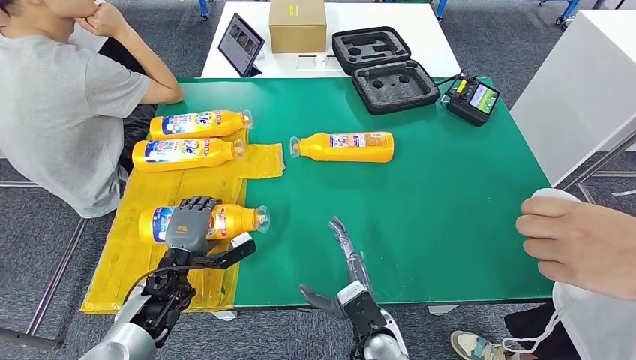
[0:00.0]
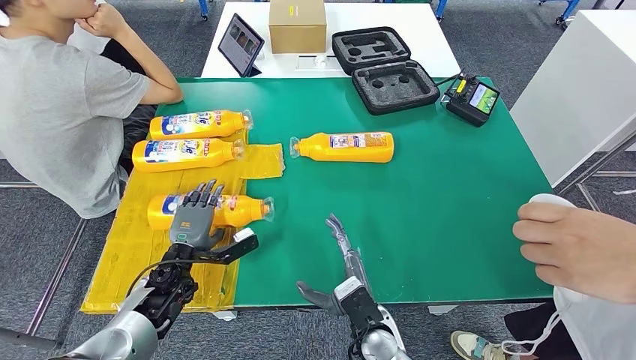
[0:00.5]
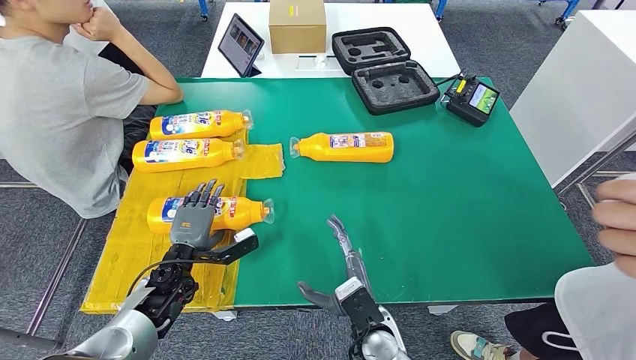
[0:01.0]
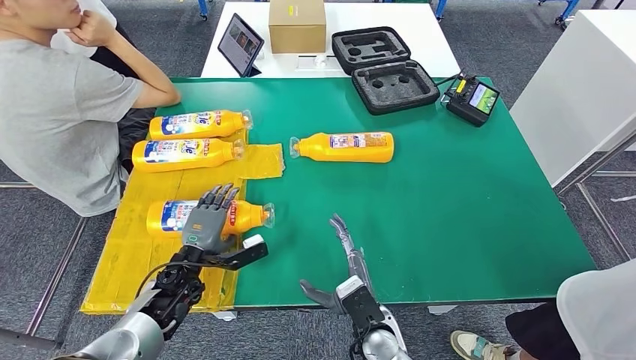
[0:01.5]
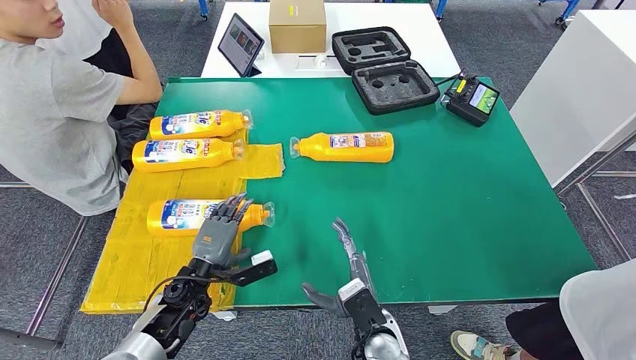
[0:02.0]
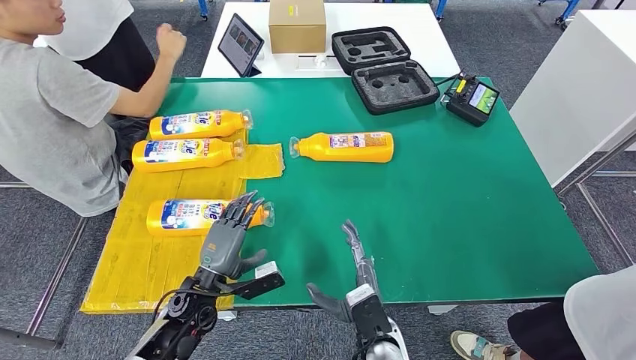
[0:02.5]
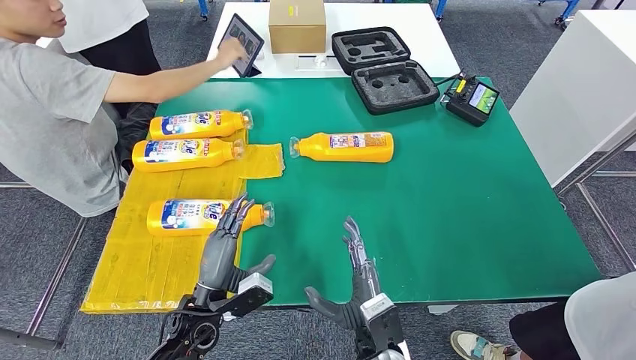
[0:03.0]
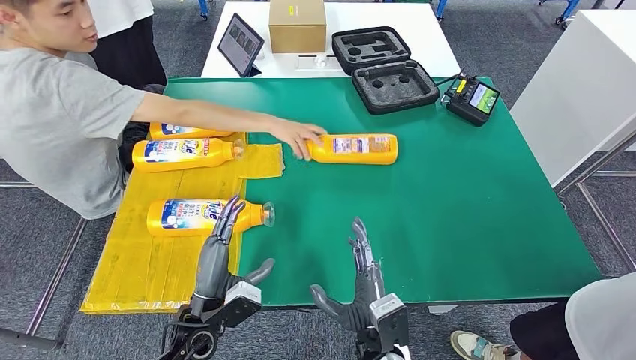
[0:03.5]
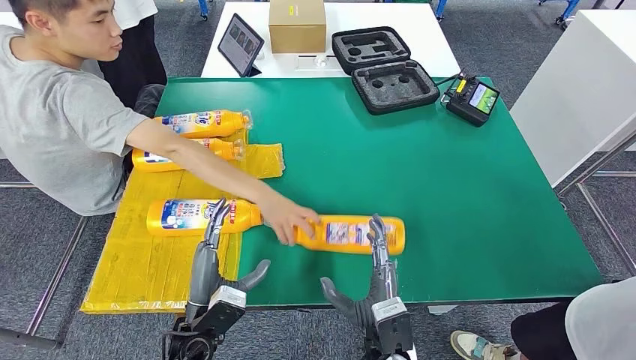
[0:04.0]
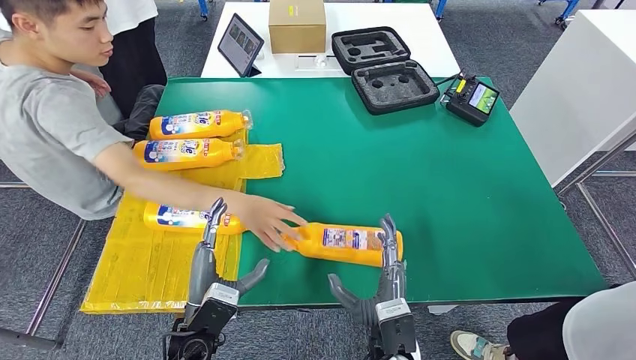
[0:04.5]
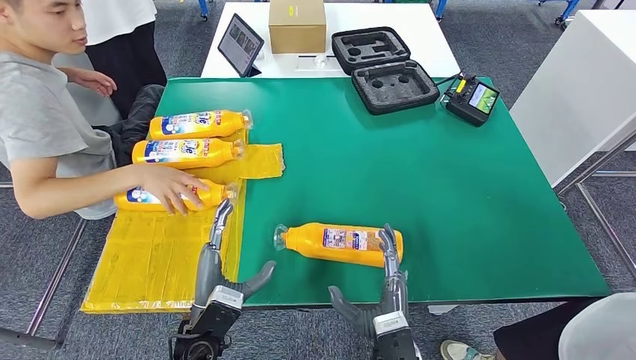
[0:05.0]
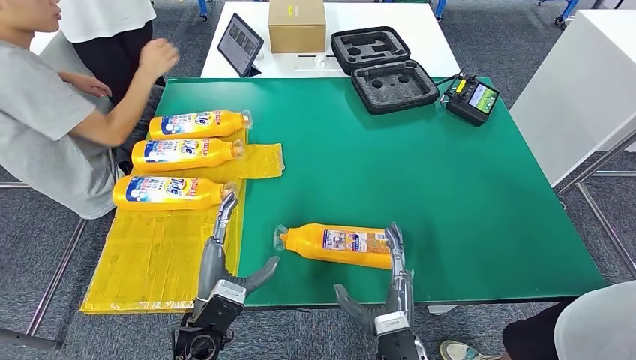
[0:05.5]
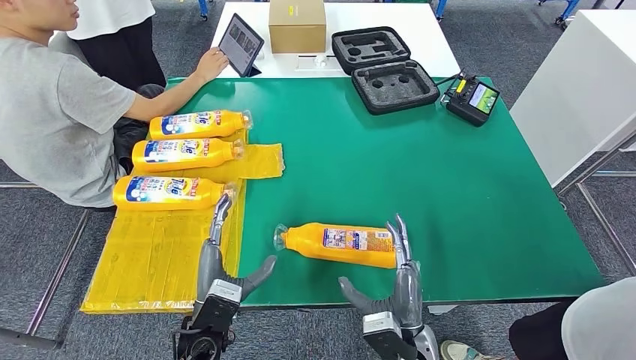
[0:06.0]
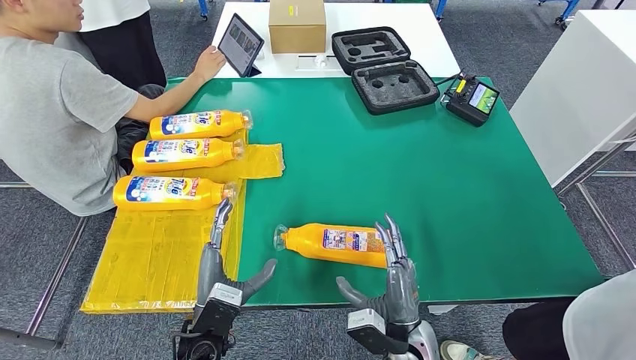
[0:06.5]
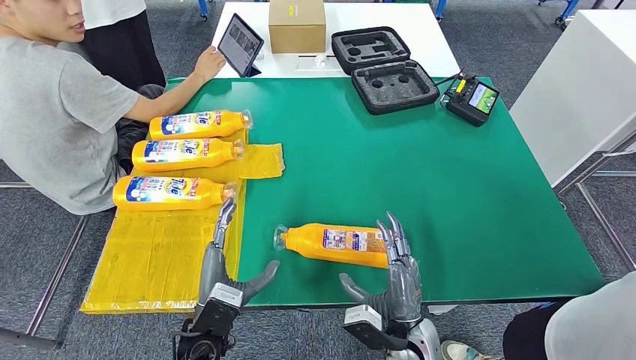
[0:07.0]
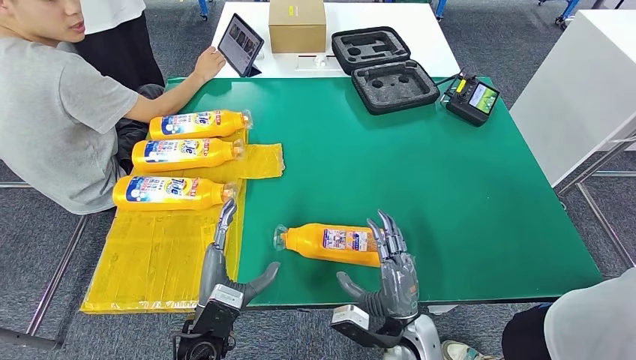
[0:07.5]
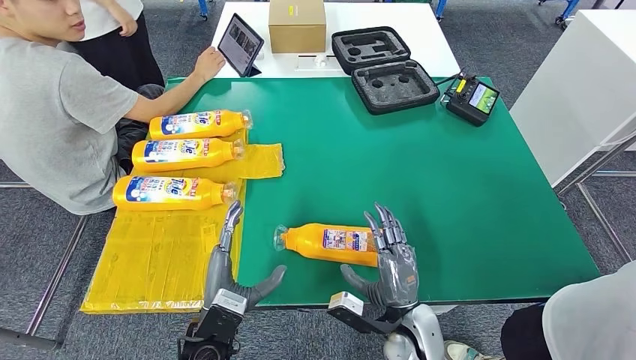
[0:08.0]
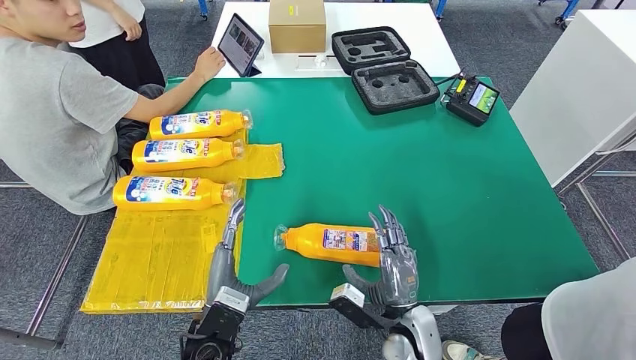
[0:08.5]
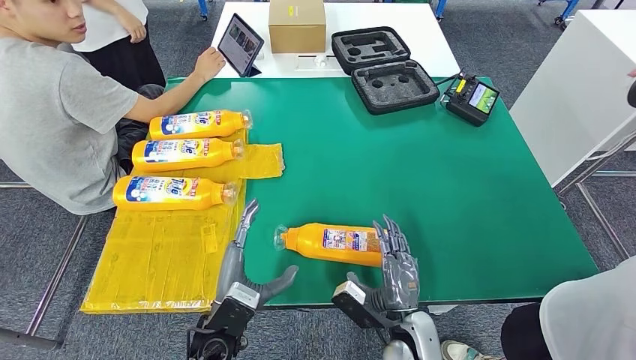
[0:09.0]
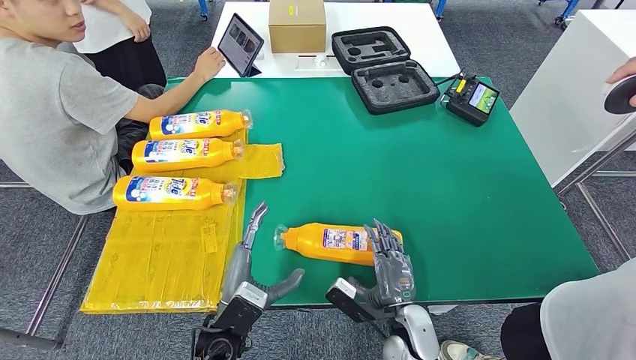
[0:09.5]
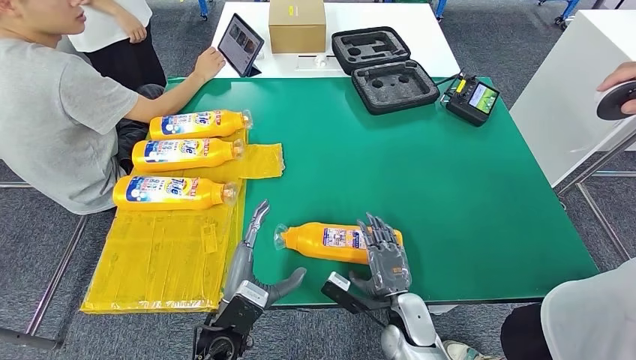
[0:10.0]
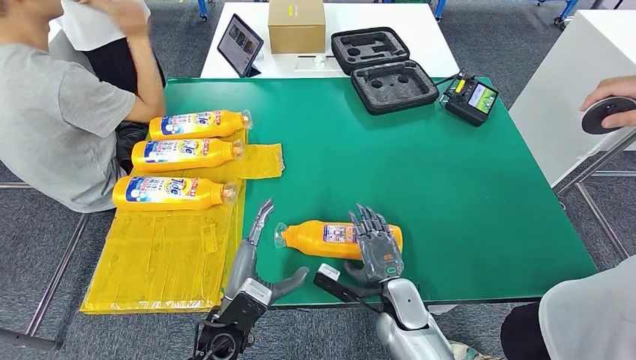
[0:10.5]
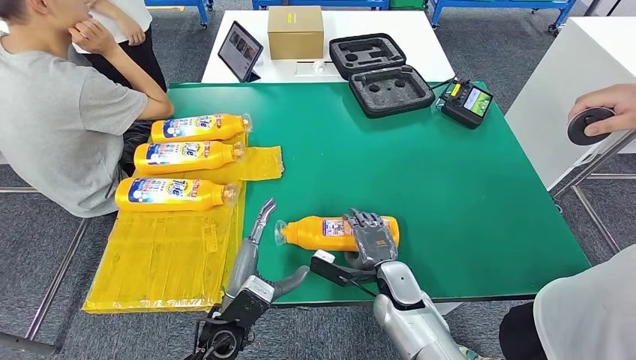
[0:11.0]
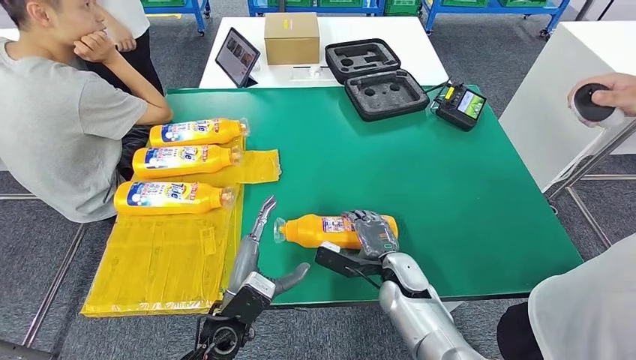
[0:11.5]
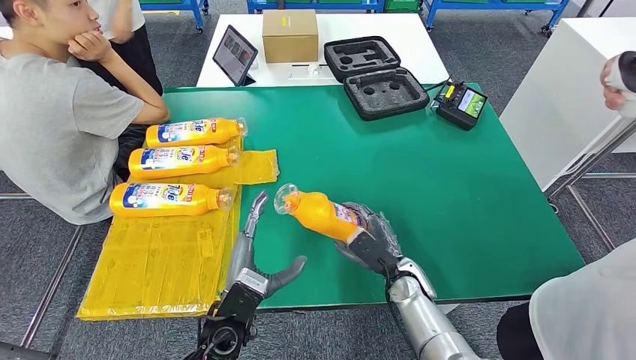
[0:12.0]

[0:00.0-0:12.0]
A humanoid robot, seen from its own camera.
0:00.0 to 0:02.0: There are only small adjustments of the hands.

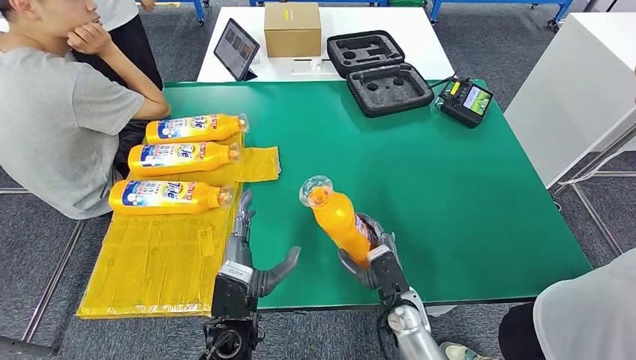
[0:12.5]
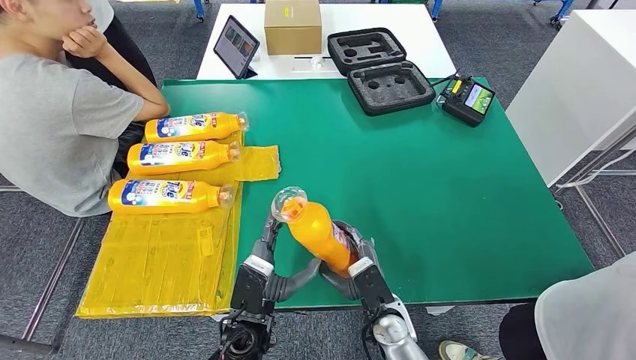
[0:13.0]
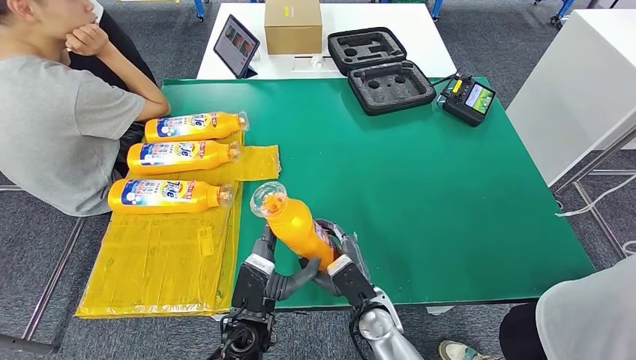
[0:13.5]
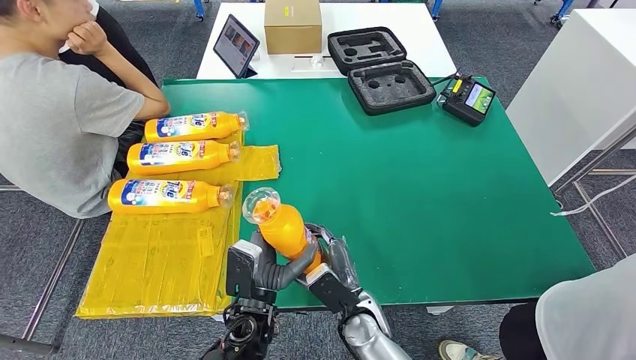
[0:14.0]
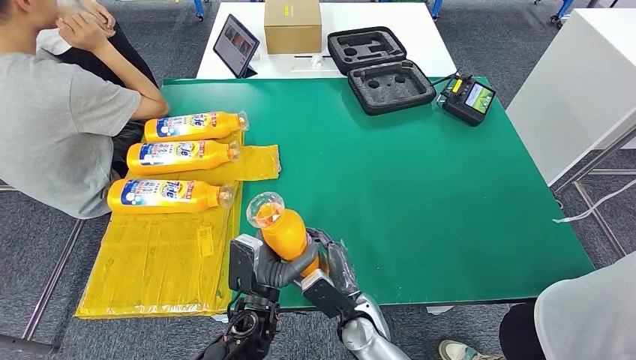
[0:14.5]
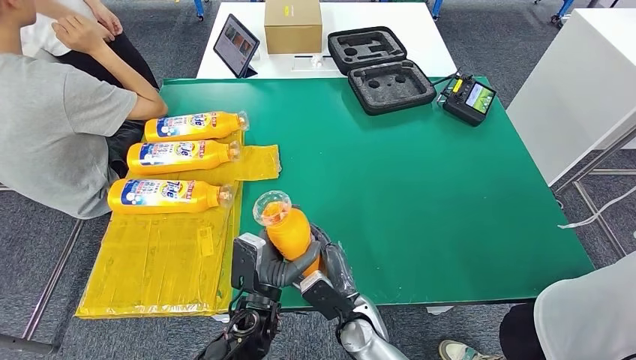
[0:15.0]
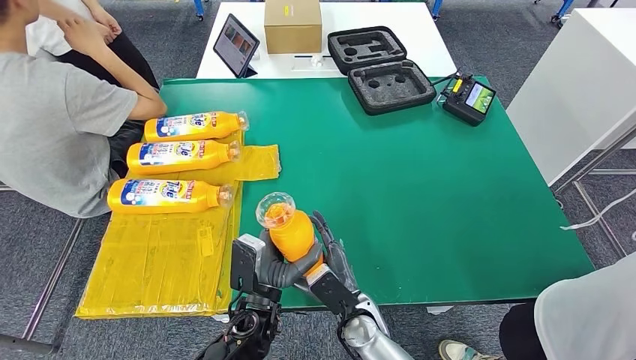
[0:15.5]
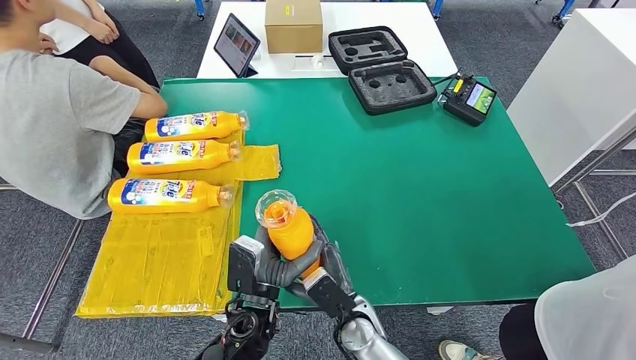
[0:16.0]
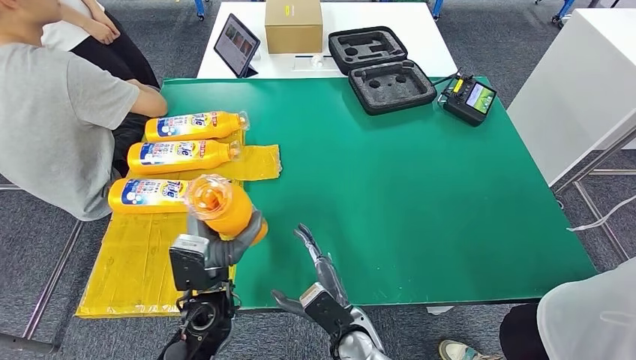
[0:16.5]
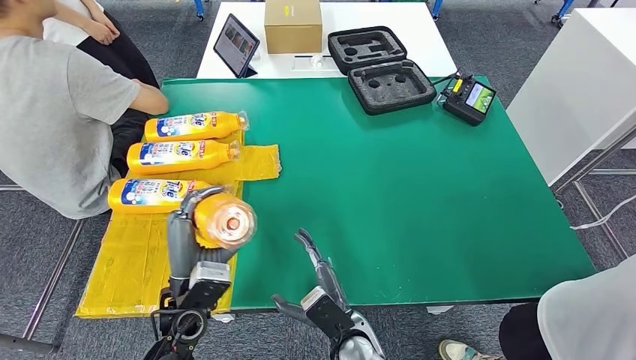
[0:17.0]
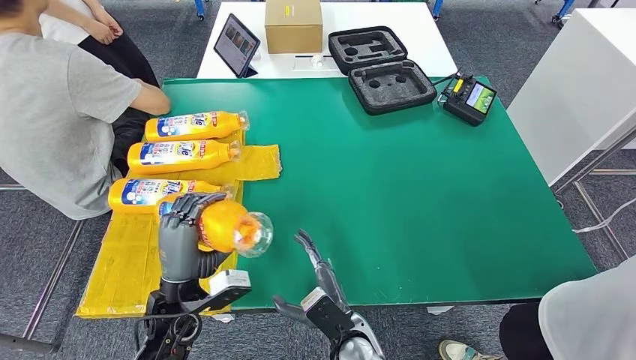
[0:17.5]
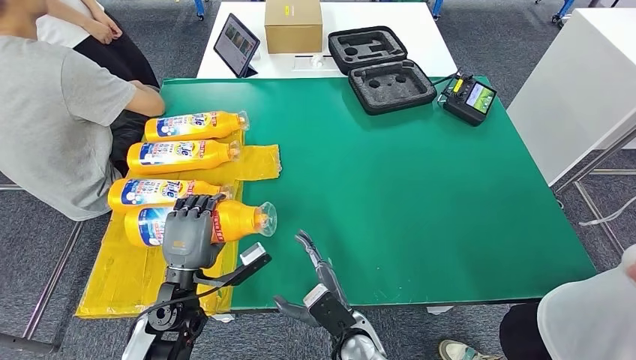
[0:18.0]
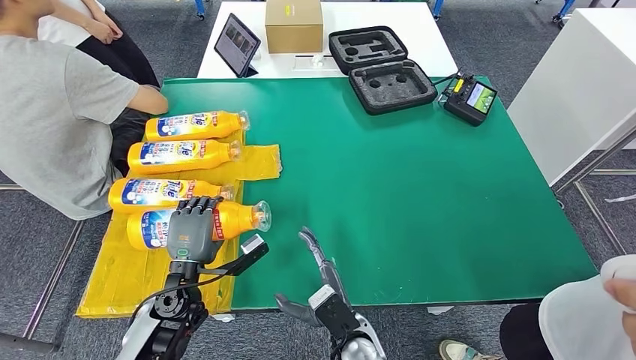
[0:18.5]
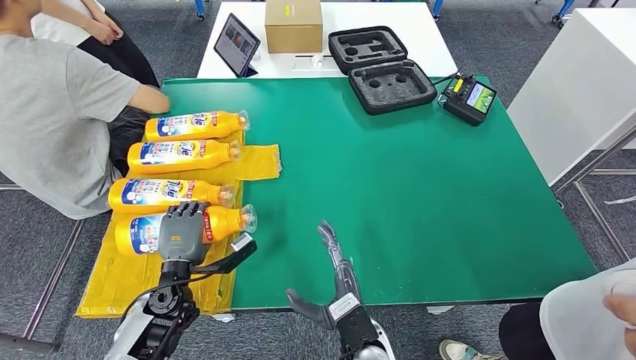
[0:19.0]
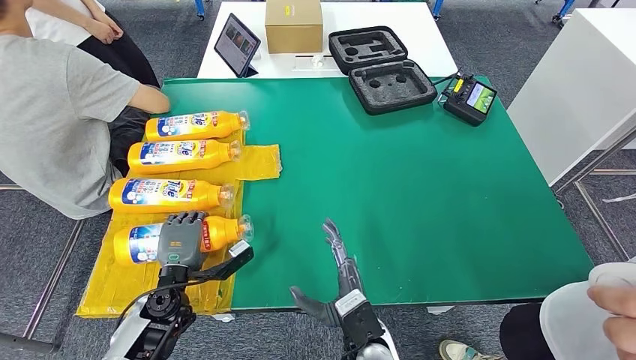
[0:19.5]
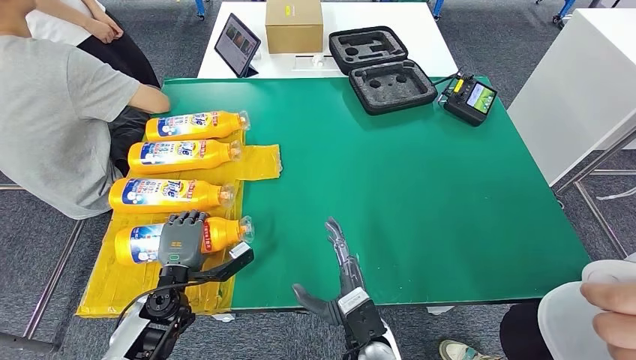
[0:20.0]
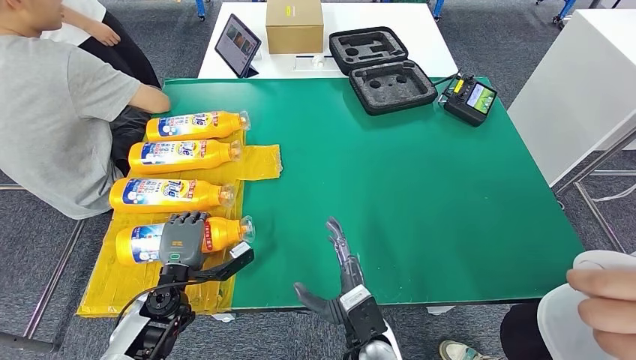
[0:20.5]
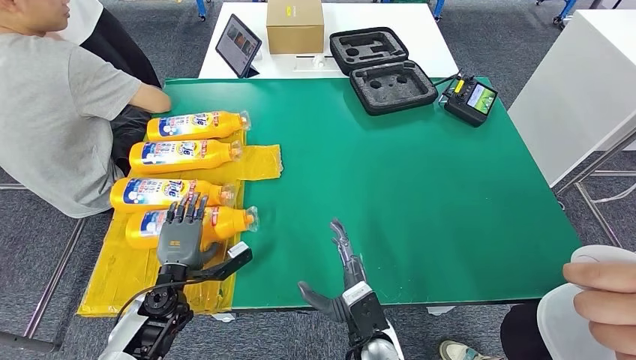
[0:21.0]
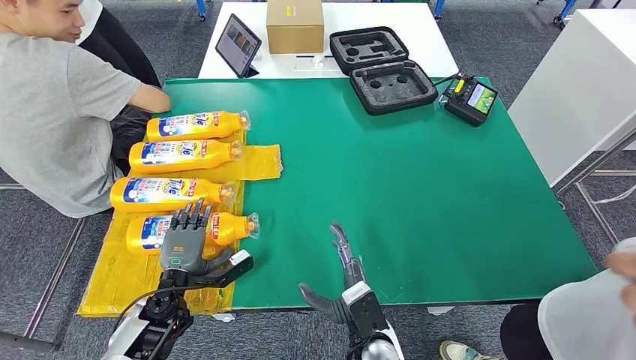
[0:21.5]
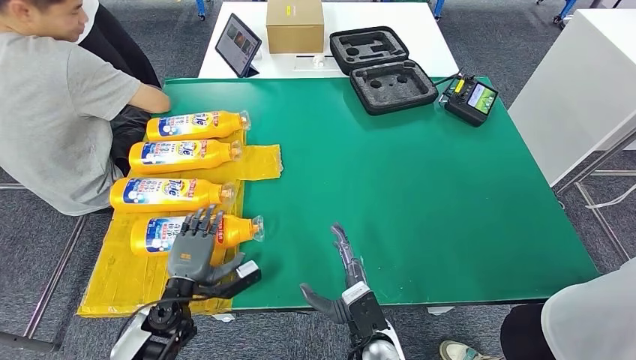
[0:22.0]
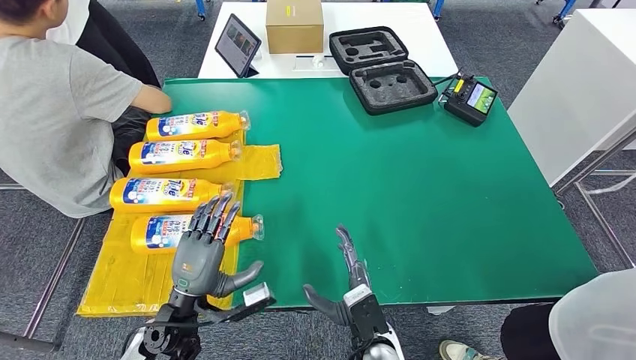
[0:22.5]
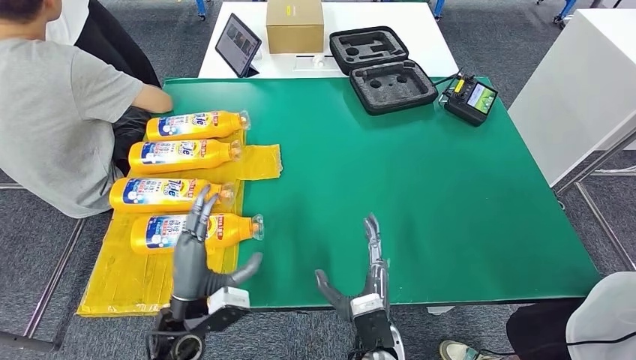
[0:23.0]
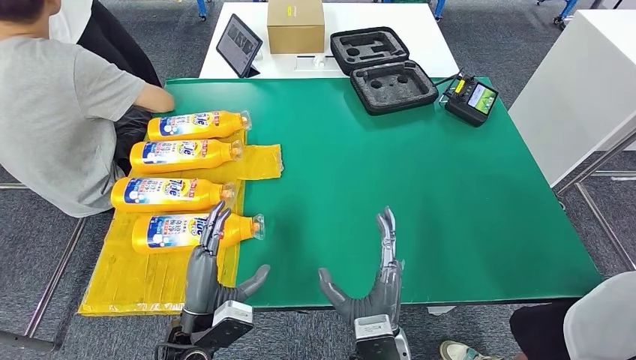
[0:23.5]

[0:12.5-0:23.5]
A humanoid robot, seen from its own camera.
Step, 0:12.5 to 0:23.5: Flip the fast-moving consumer goods bottle to the front side.
0:14.5 to 0:16.0: The hands move only a little.
0:16.0 to 0:18.0: The left hand goes some 15 cm to the left.
0:18.0 to 0:20.0: The left hand moves downward, some 5 cm.
0:20.0 to 0:21.5: There are only small adjustments of the hands.
0:21.5 to 0:23.5: The right hand is displaced upward by roughly 5 cm. Meanwhile the left hand shifts about 10 cm backward, to the right and upward.
